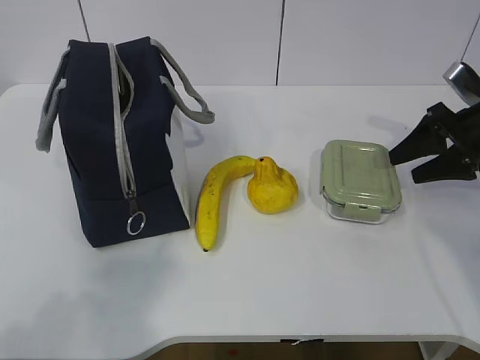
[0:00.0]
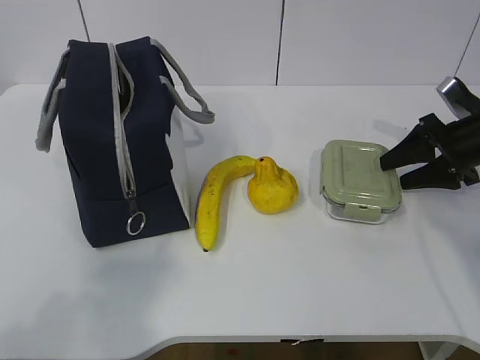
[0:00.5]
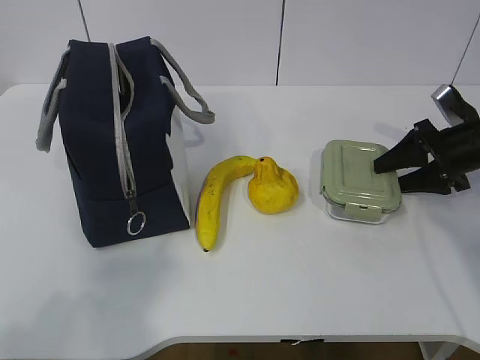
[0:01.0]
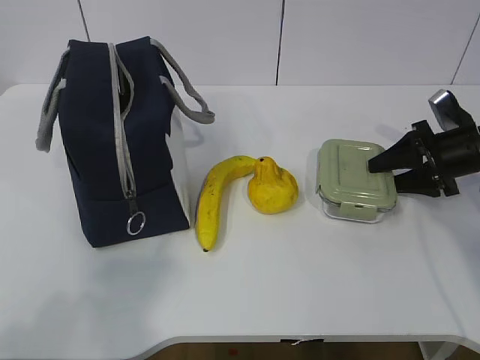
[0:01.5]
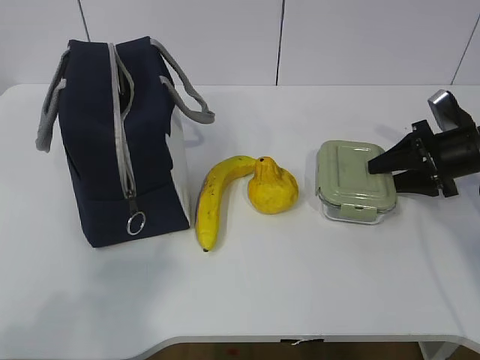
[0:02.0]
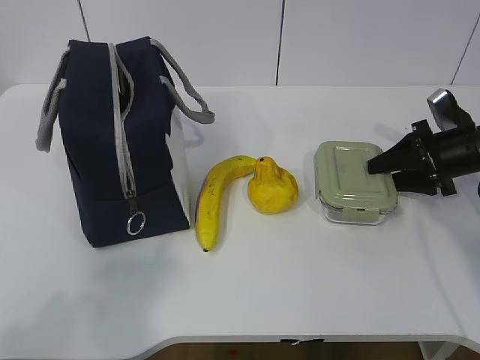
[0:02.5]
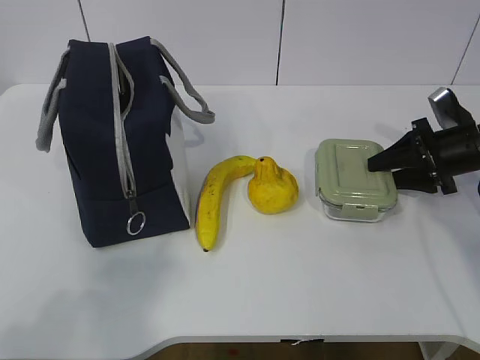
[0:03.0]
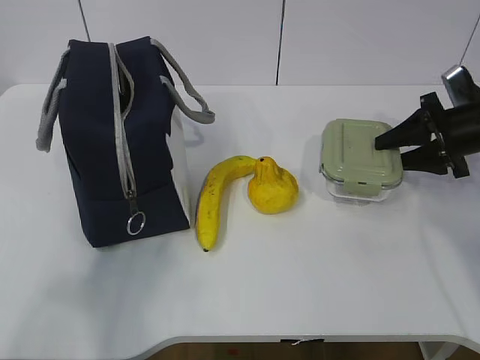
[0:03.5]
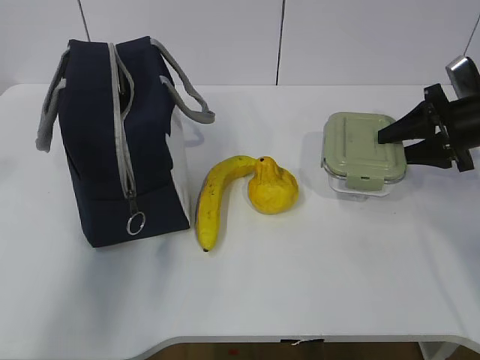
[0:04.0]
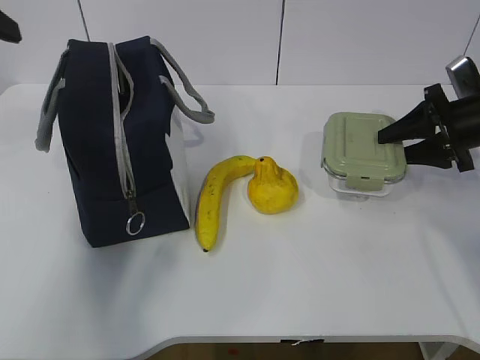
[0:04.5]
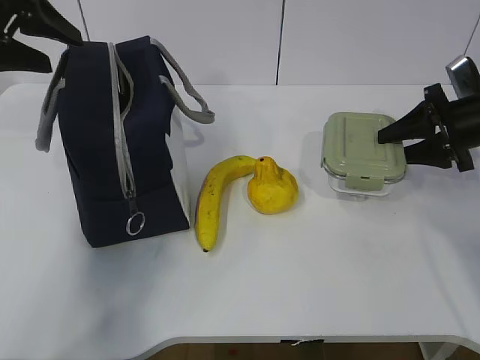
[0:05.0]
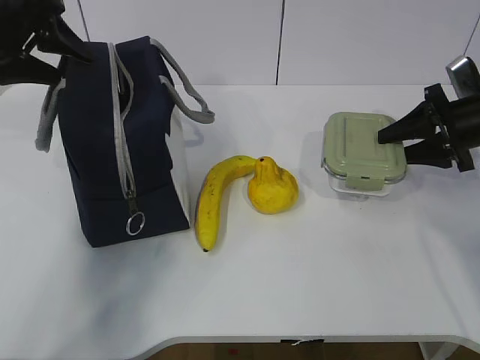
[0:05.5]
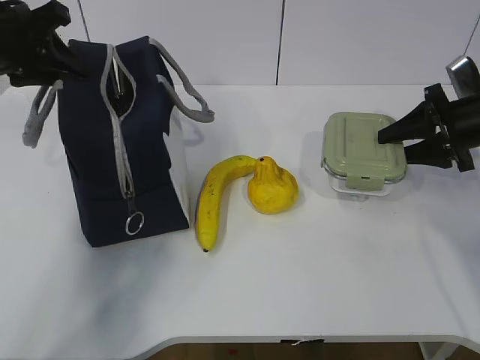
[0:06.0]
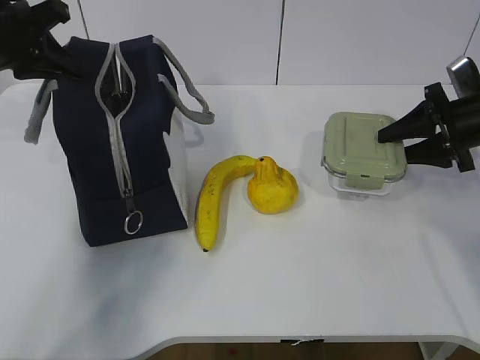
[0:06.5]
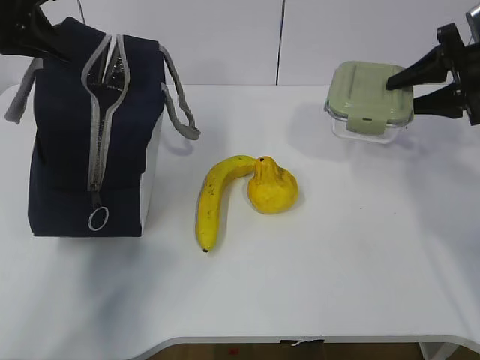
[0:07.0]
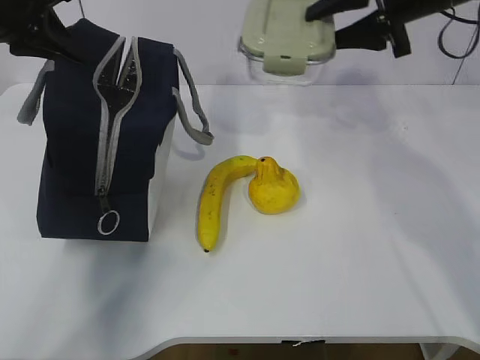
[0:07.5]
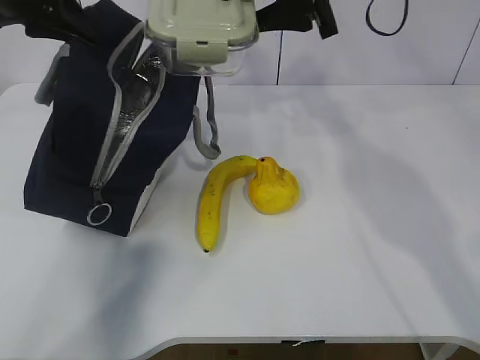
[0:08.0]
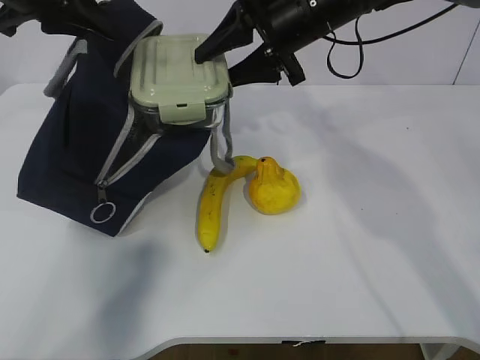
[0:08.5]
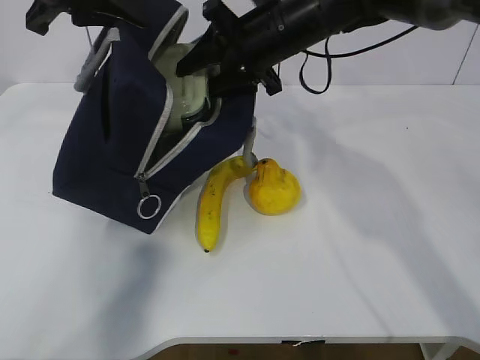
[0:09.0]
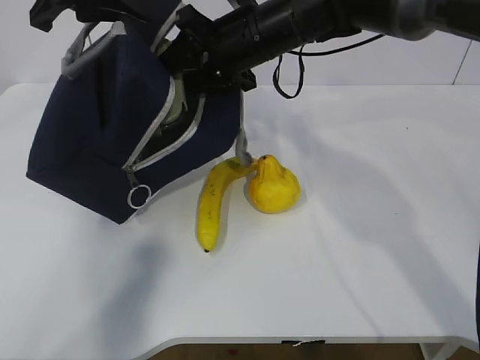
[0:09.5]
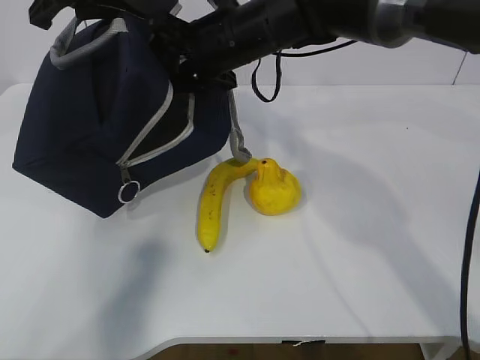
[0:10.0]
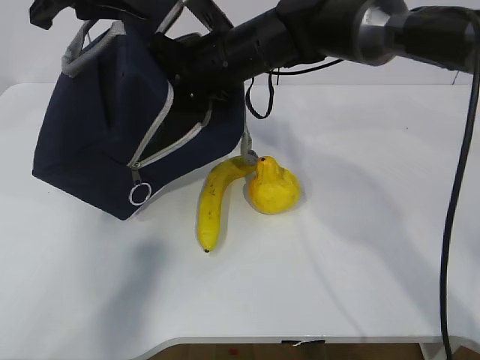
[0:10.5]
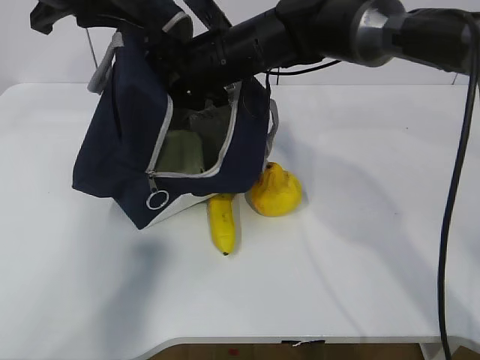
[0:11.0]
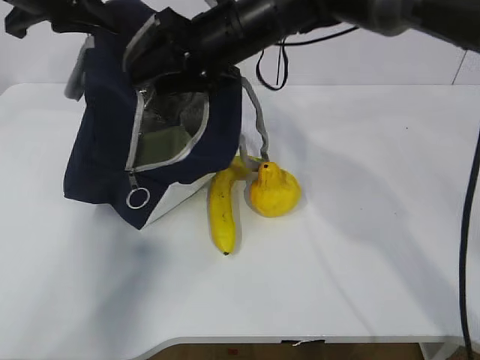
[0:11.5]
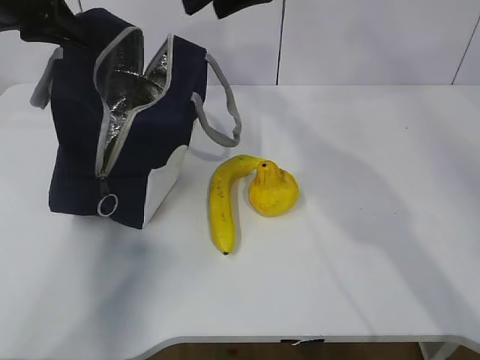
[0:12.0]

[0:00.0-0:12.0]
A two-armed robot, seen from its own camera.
Step, 0:00.0 to 0:02.5: Grasp the box with the right gripper.
Step, 0:03.0 to 0:05.5: Grasp the package with the left gripper.
Step, 0:06.5 to 0:11.5: Place the box into the package with the right gripper.
0:00.0 to 0:02.0: The right gripper heads downward, covering roughly 5 cm.
0:02.0 to 0:04.0: The right gripper heads upward, covering some 5 cm. The left gripper heads forward and upward, covering roughly 15 cm.
0:04.0 to 0:06.0: The left gripper travels forward by some 25 cm.
0:06.0 to 0:08.0: The left gripper heads upward, covering roughly 5 cm, and closes up; the right gripper is displaced to the left and upward by about 25 cm.
0:08.0 to 0:10.0: The right gripper heads to the left and downward, covering approximately 15 cm.
0:10.0 to 0:12.0: The right gripper travels upward by approximately 10 cm. Meanwhile the left gripper heads to the left, covering some 5 cm.

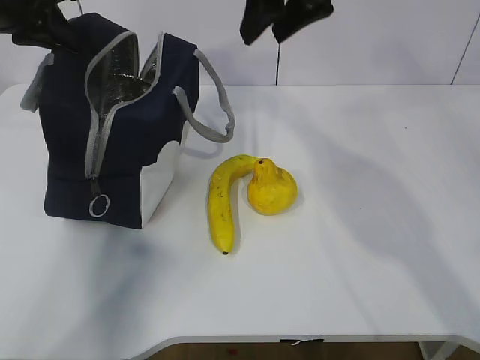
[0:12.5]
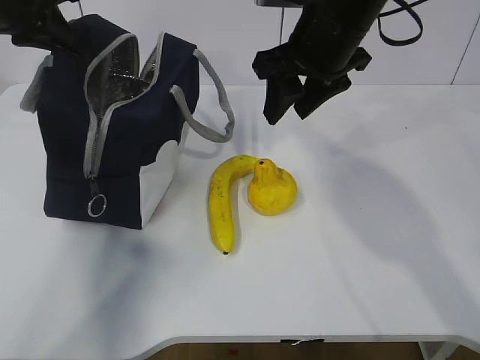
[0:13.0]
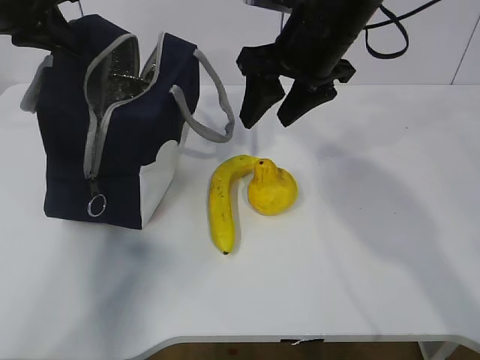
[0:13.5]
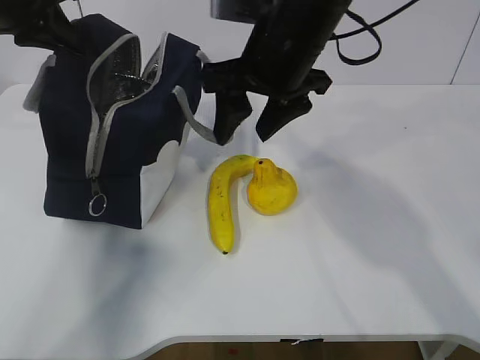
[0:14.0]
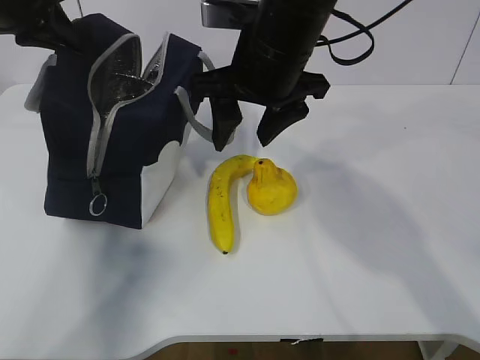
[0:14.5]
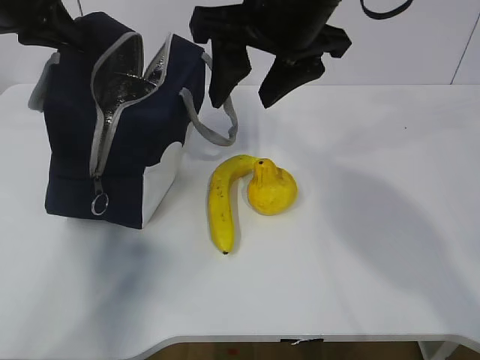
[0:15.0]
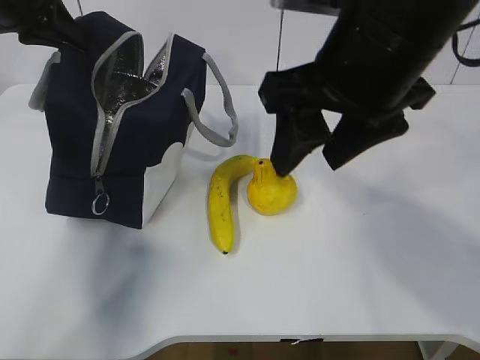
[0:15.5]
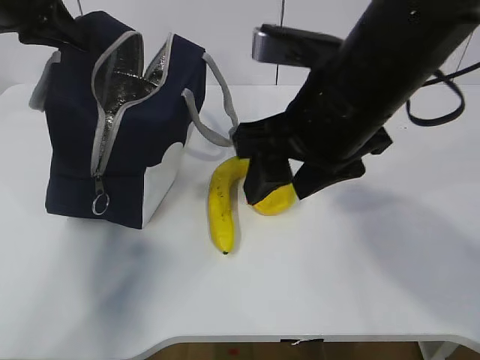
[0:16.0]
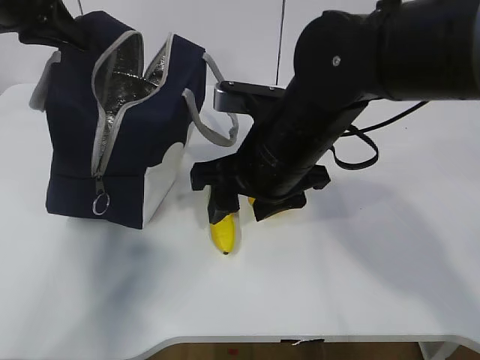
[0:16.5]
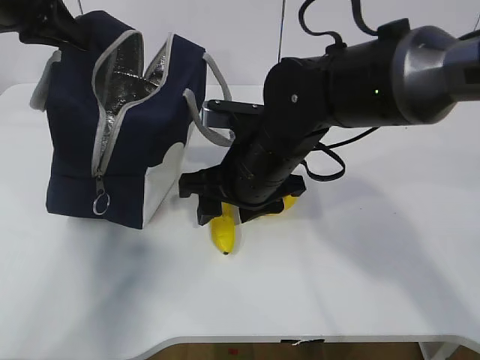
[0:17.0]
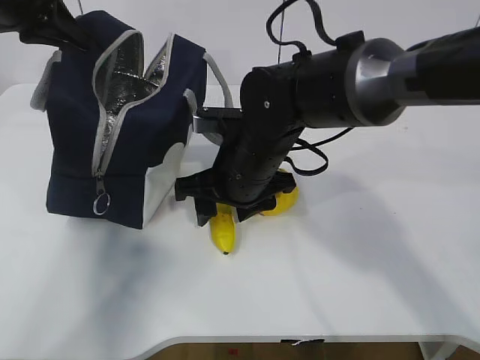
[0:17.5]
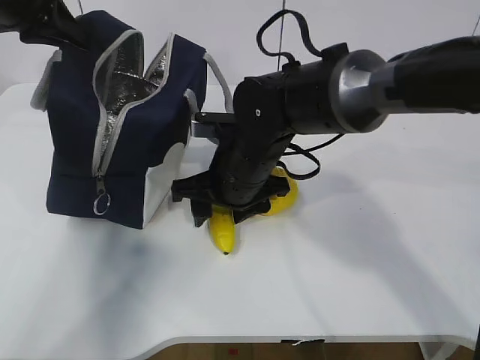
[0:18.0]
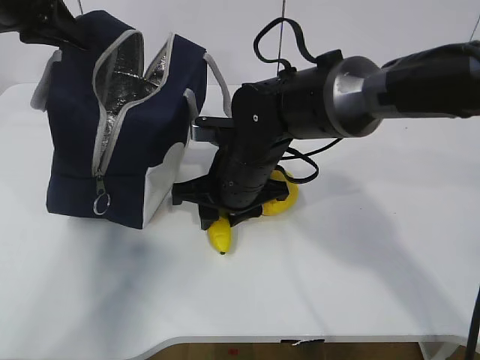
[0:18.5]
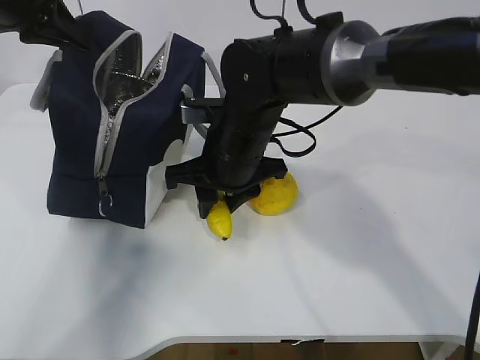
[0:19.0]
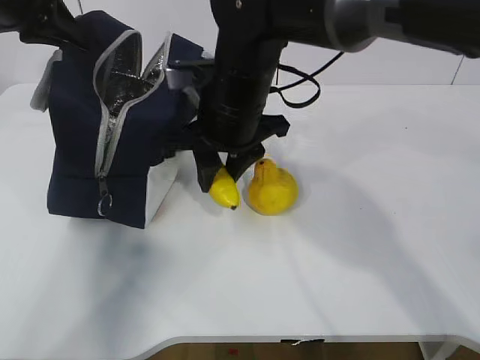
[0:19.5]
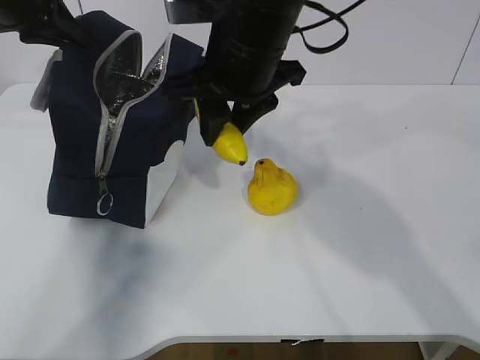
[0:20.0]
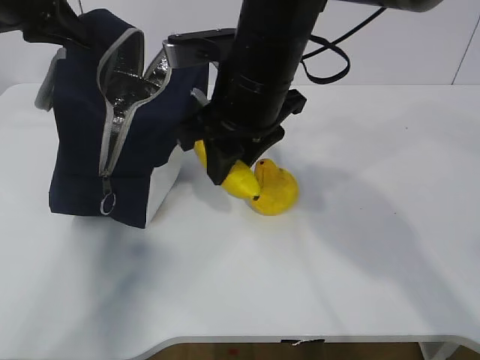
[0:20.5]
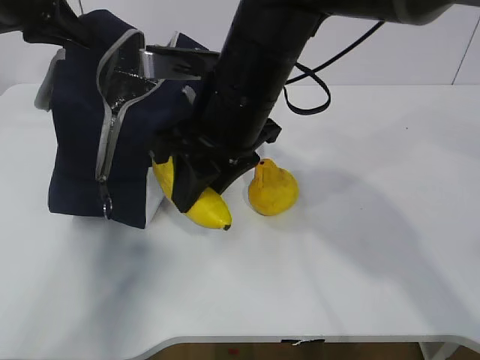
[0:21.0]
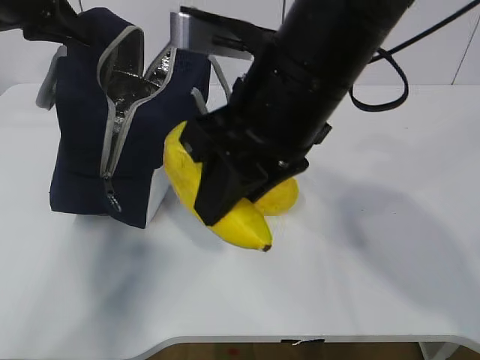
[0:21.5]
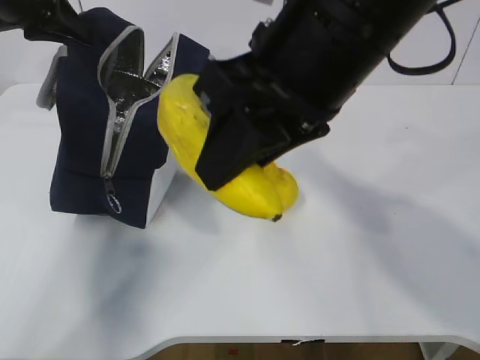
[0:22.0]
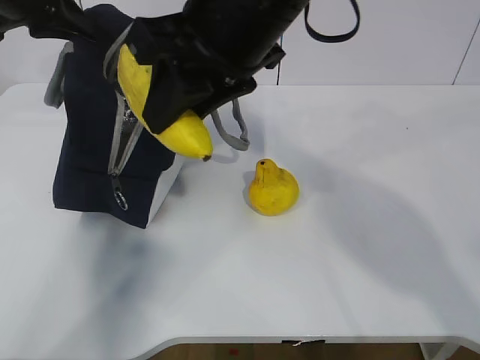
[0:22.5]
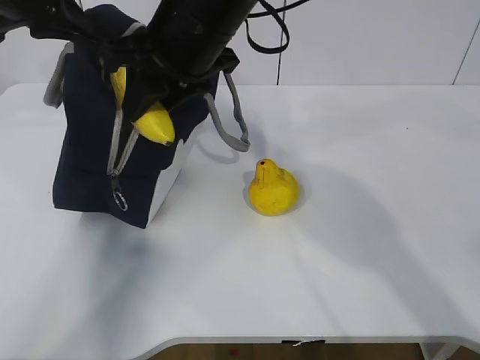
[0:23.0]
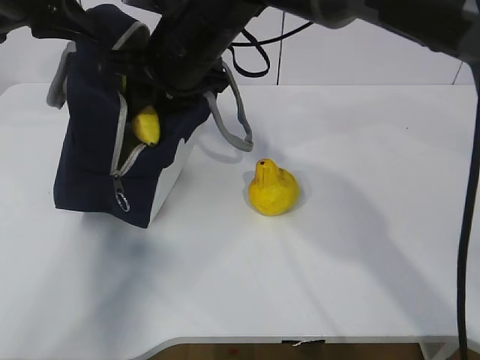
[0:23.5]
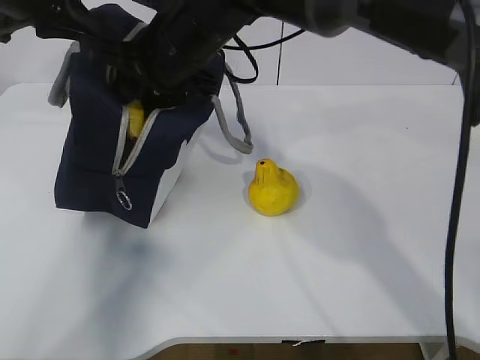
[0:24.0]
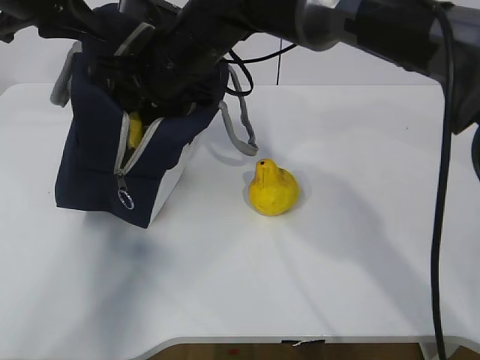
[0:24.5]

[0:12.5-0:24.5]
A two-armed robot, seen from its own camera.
Step, 0:12.5 to 0:18.0: Grasp the banana with the right gripper.
0:12.5 to 0:14.5: The right gripper moves downward, to the left and backward, some 10 cm.
0:14.5 to 0:16.5: The right gripper is displaced downward and backward by approximately 10 cm.
0:16.5 to 0:18.5: The right gripper heads downward and forward, covering some 10 cm.
0:18.5 to 0:20.5: The right gripper goes some 15 cm upward.
0:20.5 to 0:22.5: The right gripper is displaced upward by some 10 cm.
0:22.5 to 0:24.5: The right gripper is displaced forward, downward and to the left by approximately 15 cm.

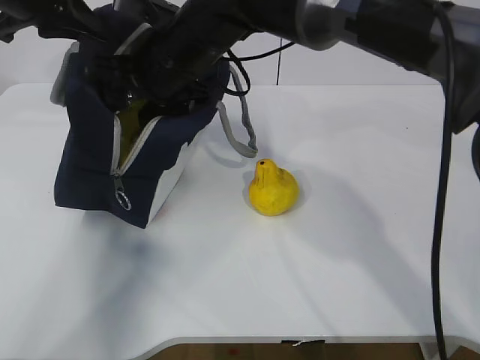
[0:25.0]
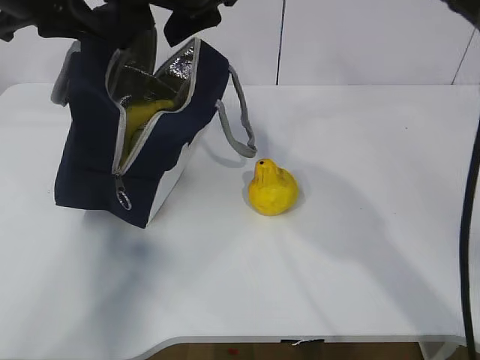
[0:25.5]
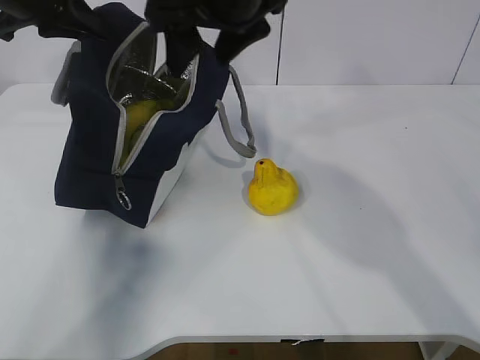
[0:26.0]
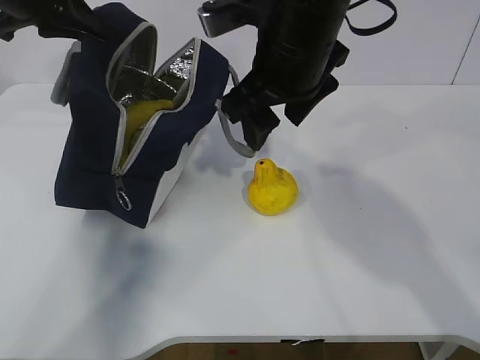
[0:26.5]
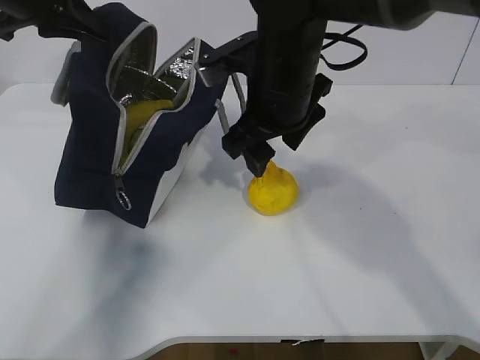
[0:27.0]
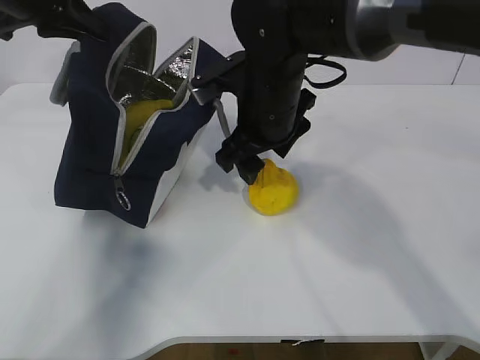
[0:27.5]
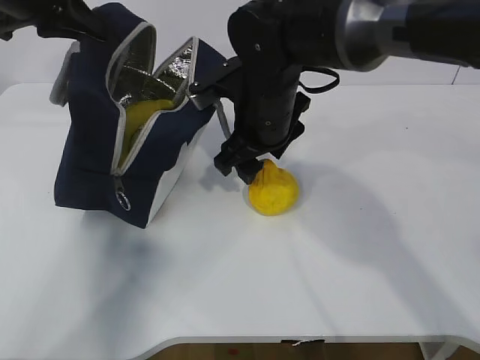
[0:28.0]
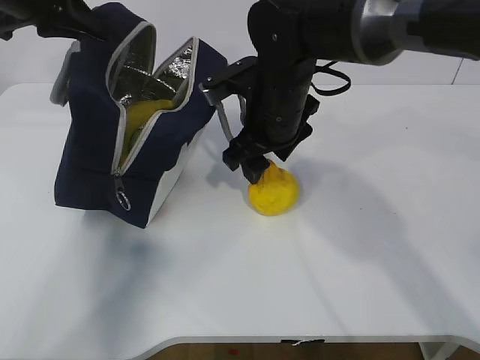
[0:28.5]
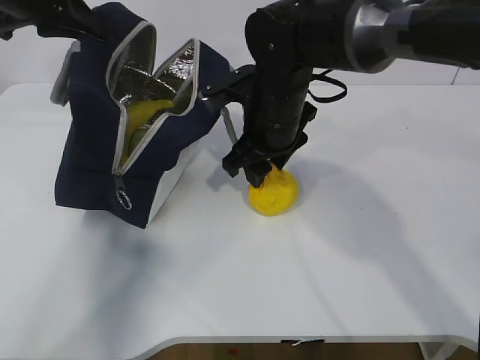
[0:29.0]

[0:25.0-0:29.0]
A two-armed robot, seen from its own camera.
0:25.0 to 0:27.0: The right gripper goes about 10 cm to the right.
0:27.0 to 0:29.0: The right gripper shifts about 5 cm downward.
